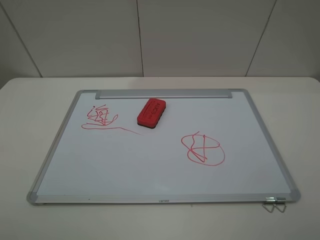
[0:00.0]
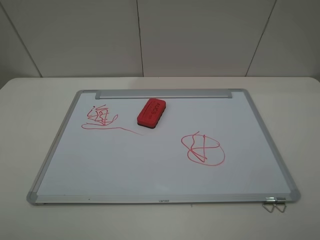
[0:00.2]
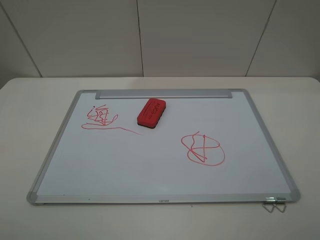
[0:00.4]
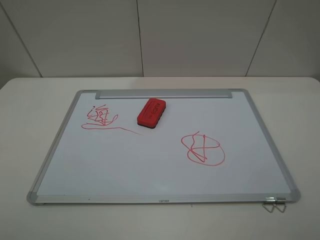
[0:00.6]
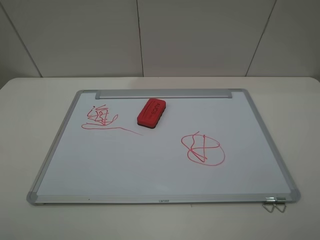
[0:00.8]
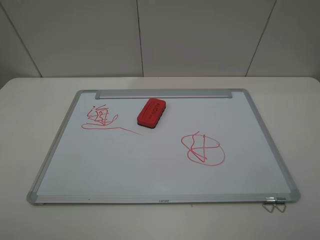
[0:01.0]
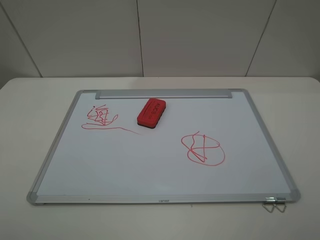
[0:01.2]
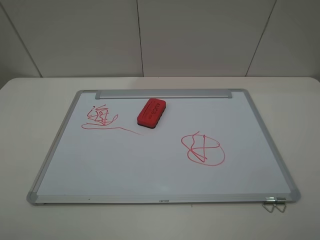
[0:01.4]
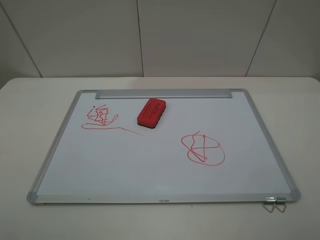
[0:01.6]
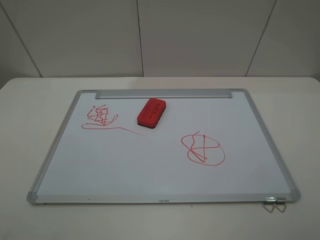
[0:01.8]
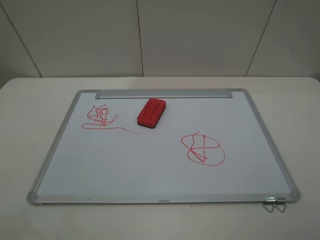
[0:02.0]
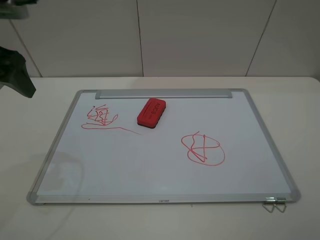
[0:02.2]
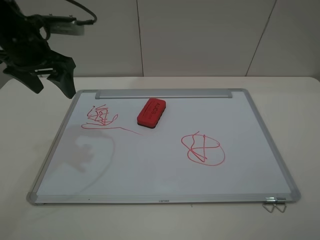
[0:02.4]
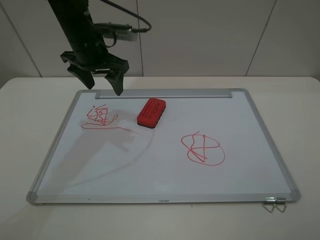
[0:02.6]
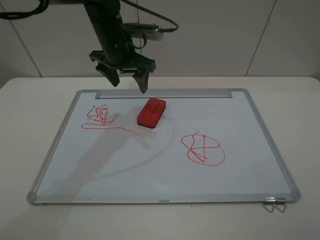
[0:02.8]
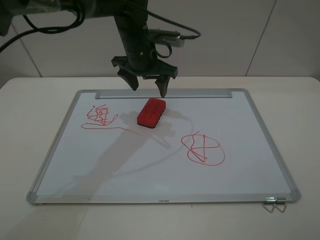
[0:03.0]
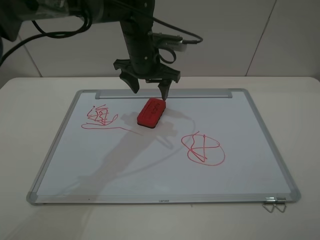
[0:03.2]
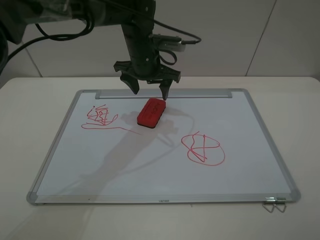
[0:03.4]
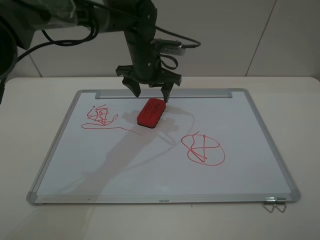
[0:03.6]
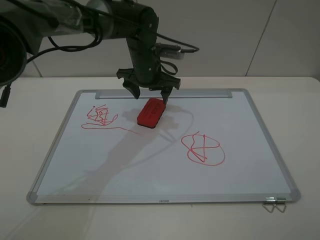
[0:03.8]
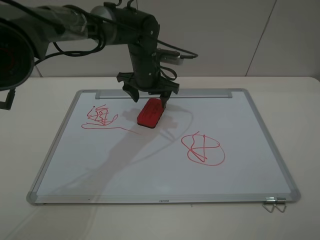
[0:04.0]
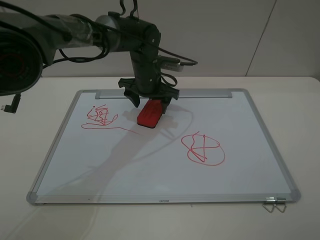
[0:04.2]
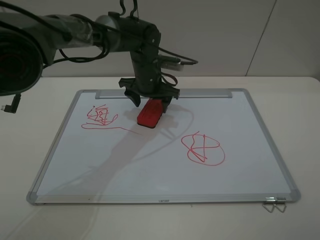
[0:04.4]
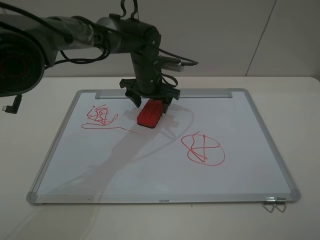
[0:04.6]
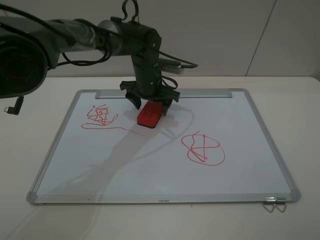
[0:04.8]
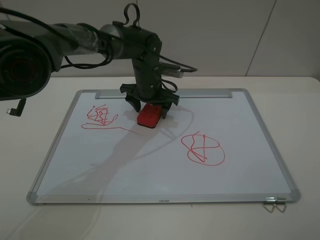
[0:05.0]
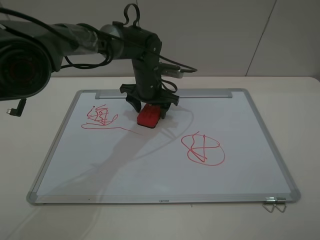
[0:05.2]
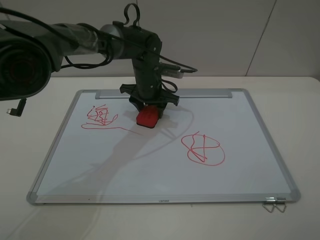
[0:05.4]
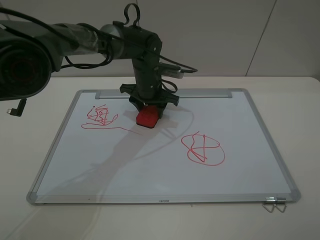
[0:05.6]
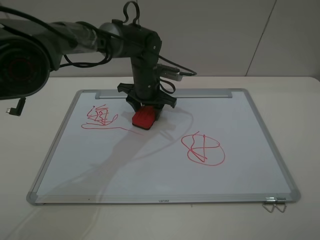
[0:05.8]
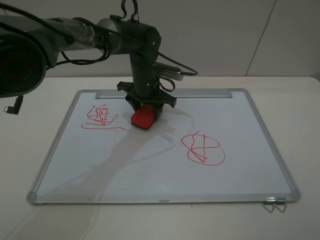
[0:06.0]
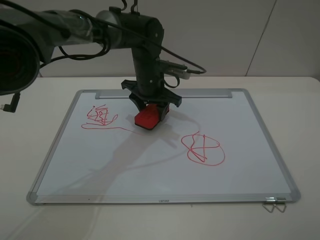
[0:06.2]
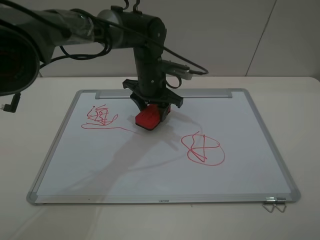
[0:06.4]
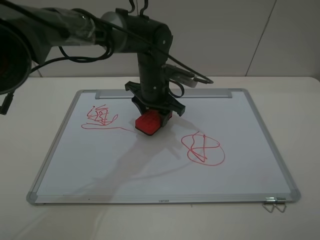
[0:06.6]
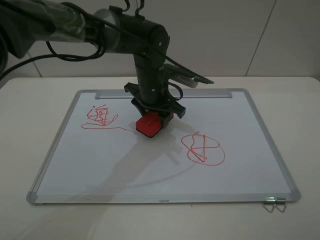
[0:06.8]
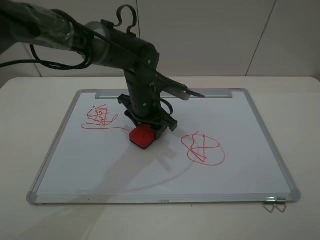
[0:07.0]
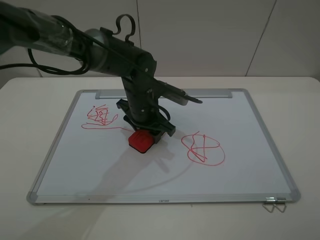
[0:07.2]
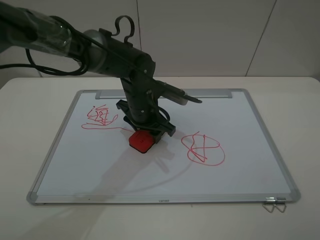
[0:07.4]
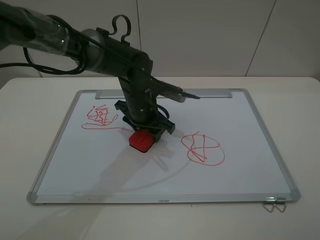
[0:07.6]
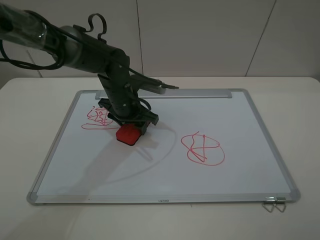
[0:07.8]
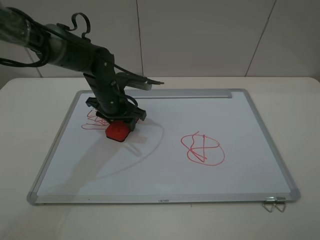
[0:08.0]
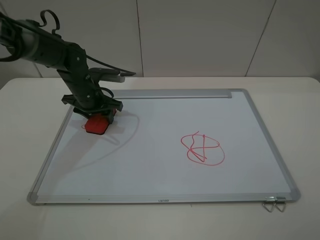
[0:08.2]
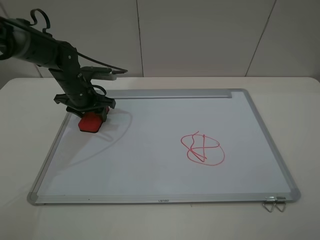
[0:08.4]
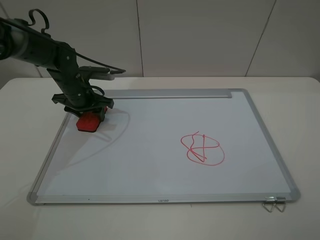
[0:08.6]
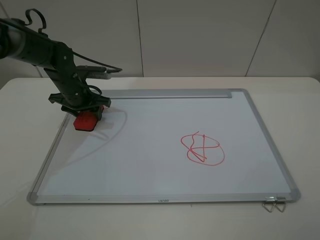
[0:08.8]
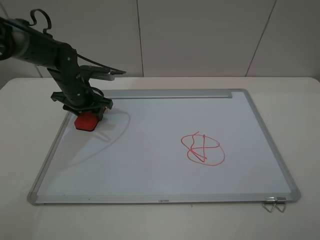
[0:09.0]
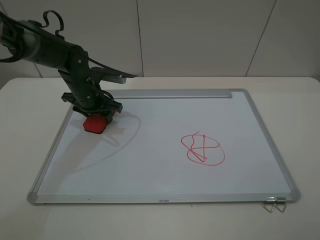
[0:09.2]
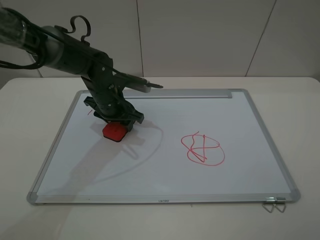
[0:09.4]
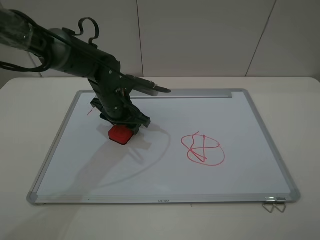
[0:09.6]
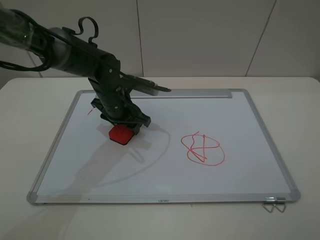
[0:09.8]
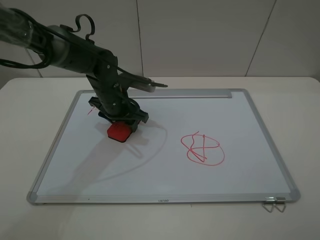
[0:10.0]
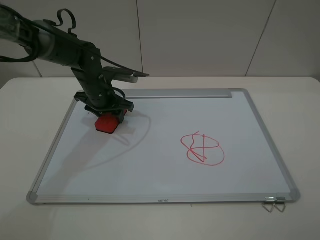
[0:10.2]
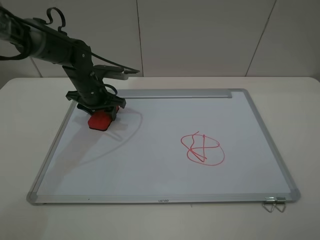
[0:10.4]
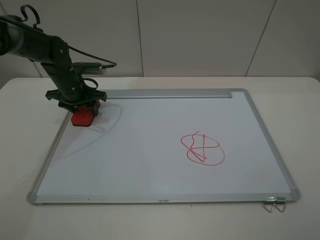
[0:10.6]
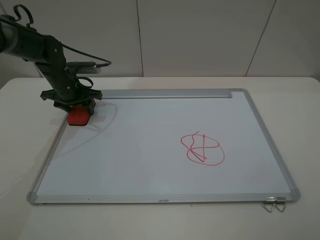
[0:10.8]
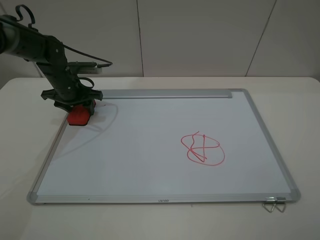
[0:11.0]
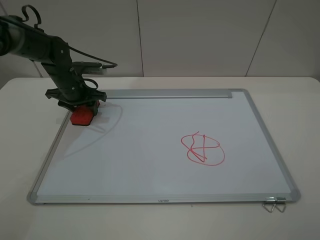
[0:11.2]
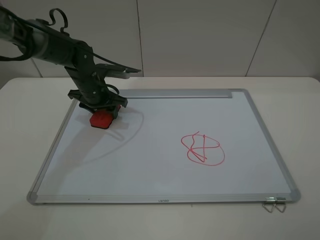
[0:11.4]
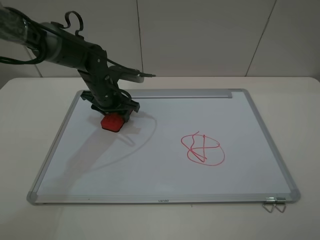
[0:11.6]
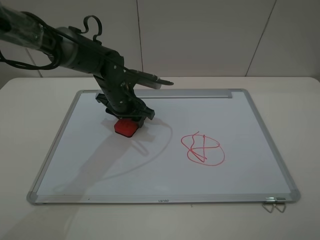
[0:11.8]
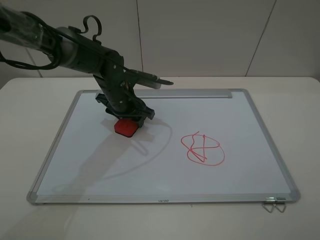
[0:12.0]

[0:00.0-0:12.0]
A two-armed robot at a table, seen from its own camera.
Step, 0:00.0 to 0:05.2: Grasp the eraser with the left gripper.
0:01.6 to 0:03.0: The left gripper goes some 50 cm forward and to the right.
0:03.0 to 0:04.4: The left gripper goes roughly 5 cm downward.
0:04.4 to 0:06.0: The left gripper closes its fingers.
0:06.0 to 0:07.6: The left gripper travels backward by about 5 cm.
0:07.6 to 0:09.0: The left gripper shifts about 15 cm to the left.
0:09.0 to 0:10.4: The left gripper goes to the right and returns, roughly 10 cm each way.
0:10.4 to 0:12.0: The left gripper is displaced to the right by about 10 cm.

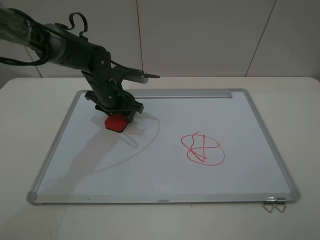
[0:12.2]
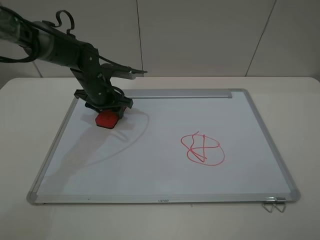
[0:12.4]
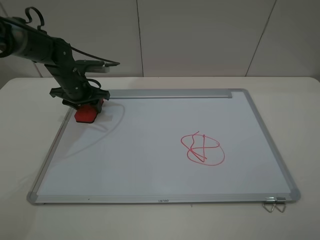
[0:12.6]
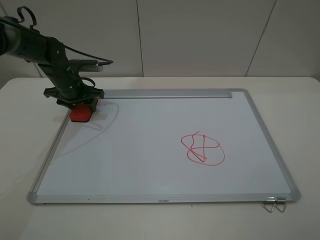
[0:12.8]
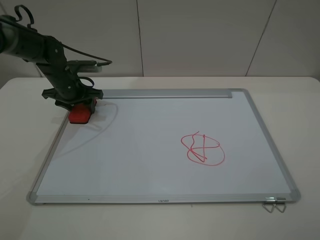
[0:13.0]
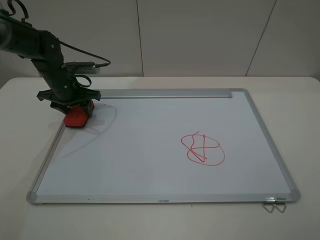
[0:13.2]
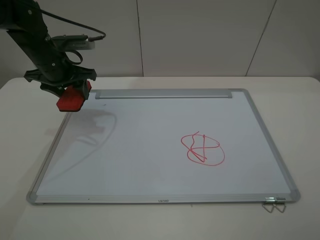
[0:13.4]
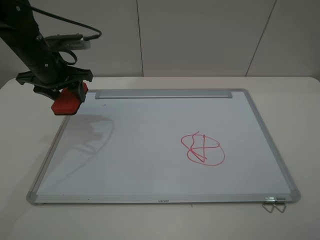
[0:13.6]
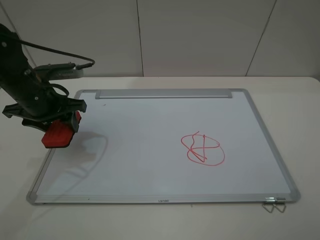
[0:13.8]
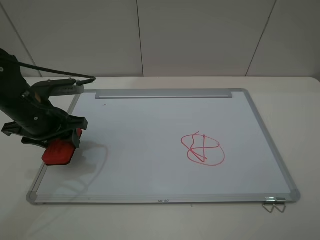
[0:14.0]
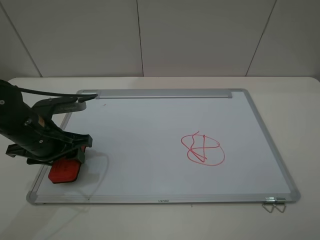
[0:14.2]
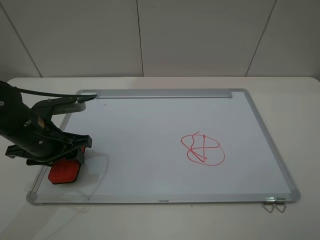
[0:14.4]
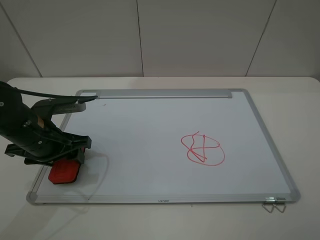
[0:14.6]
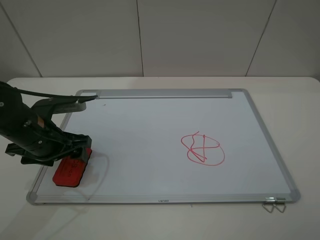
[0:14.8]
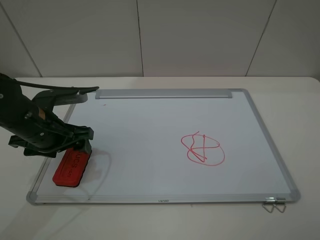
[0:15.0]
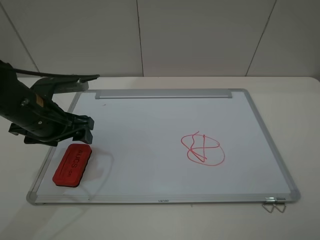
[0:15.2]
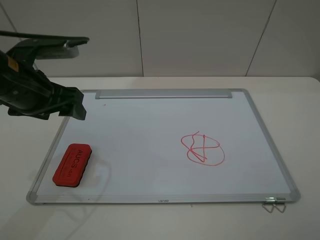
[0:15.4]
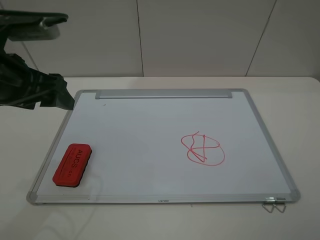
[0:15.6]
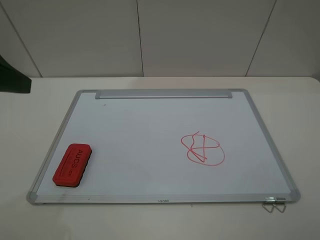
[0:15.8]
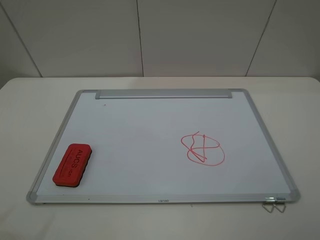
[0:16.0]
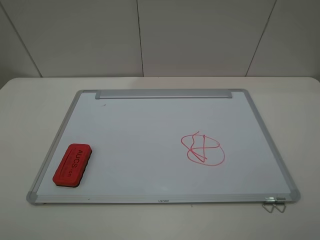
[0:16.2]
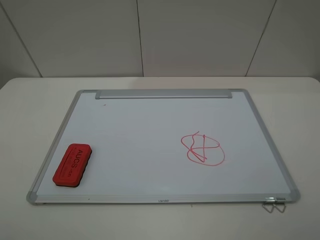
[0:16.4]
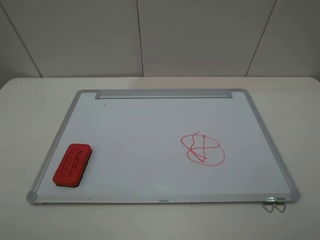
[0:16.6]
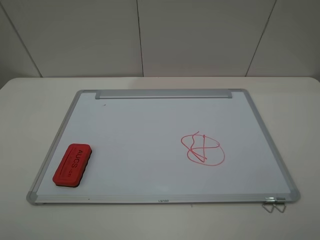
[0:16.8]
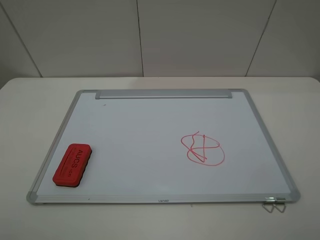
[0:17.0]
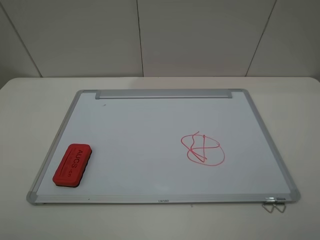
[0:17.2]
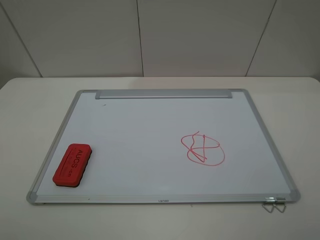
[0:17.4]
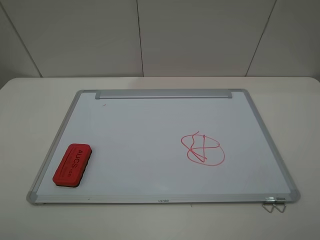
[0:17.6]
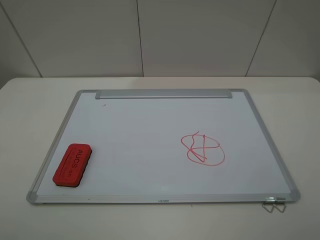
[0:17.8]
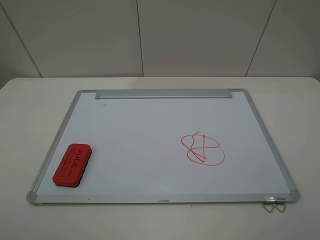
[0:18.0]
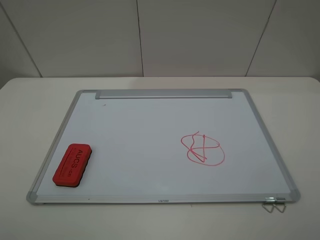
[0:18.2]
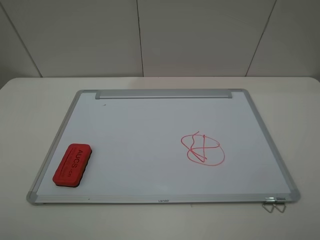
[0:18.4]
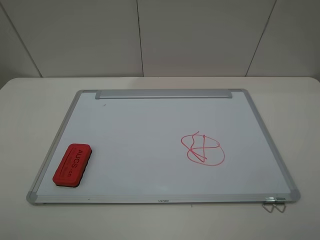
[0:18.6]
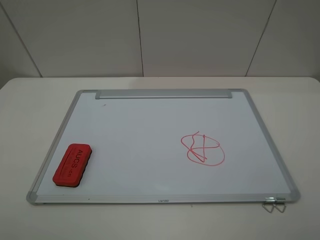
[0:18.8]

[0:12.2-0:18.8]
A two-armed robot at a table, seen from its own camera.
Step, 0:13.4 to 0:14.8: Place the eraser with the left gripper.
0:12.2 to 0:13.8: The left gripper moves to the left, backward and upward, about 15 cm.
0:13.8 to 0:15.4: The left gripper moves upward, roughly 5 cm, and opens its fingers.
0:15.4 to 0:17.2: The left gripper is displaced backward and to the left by approximately 25 cm.
